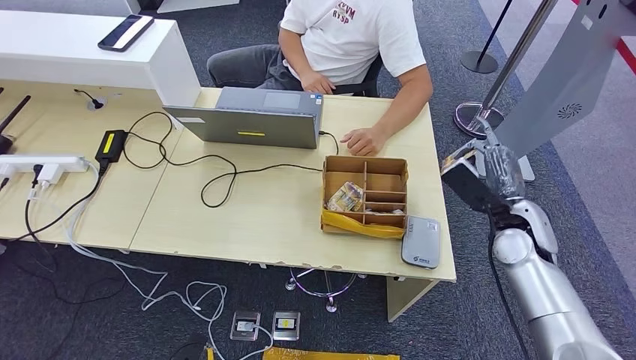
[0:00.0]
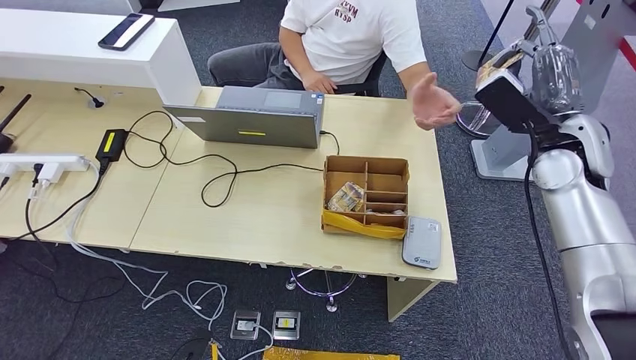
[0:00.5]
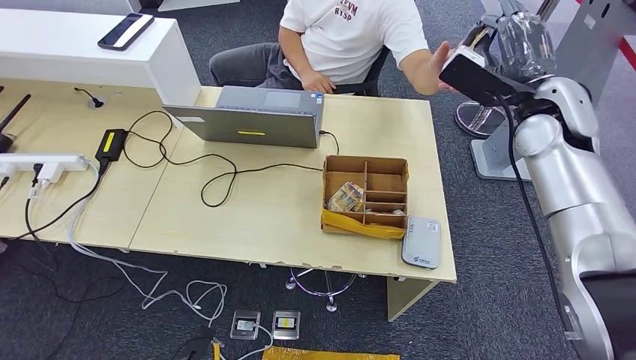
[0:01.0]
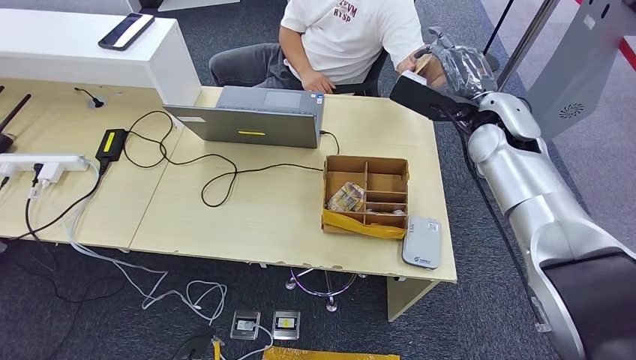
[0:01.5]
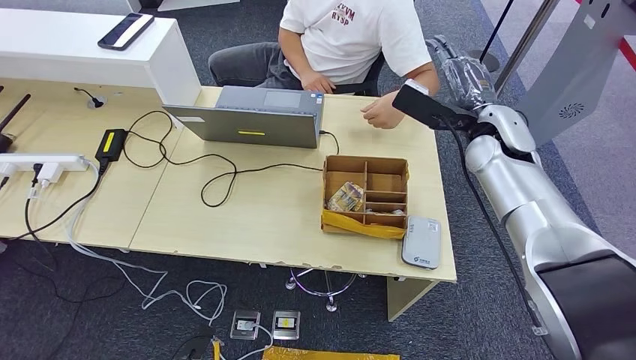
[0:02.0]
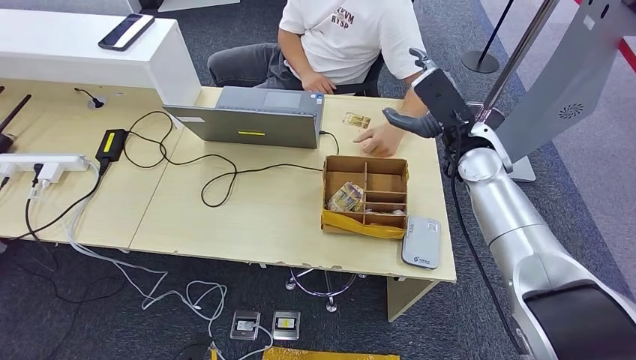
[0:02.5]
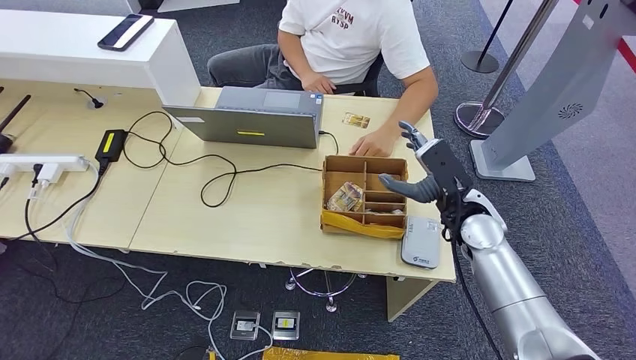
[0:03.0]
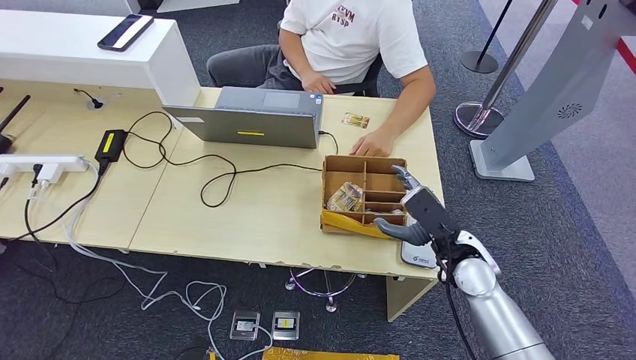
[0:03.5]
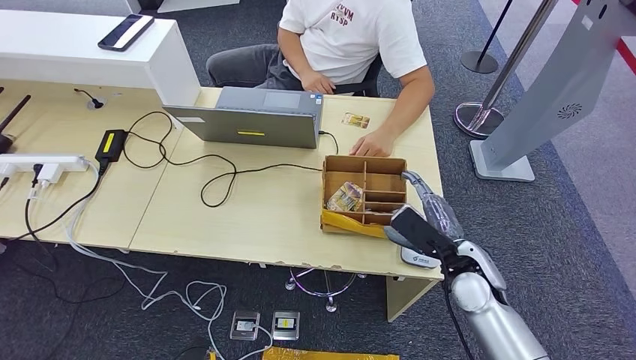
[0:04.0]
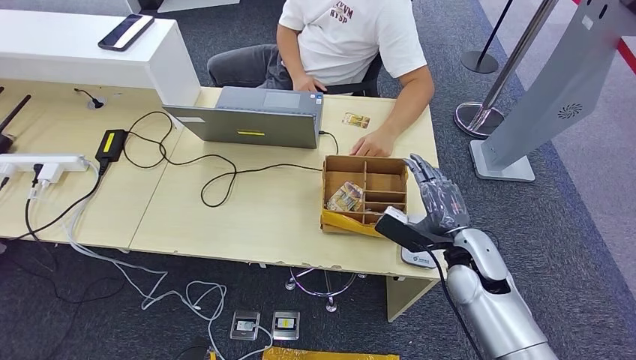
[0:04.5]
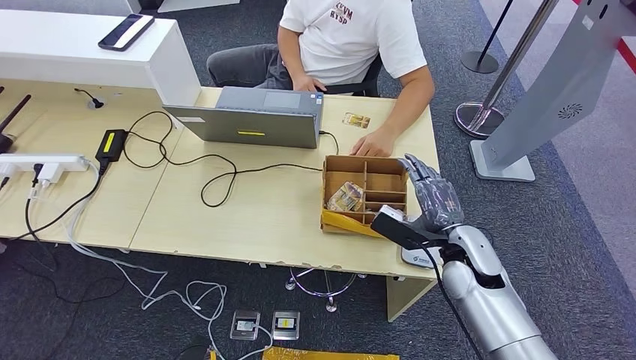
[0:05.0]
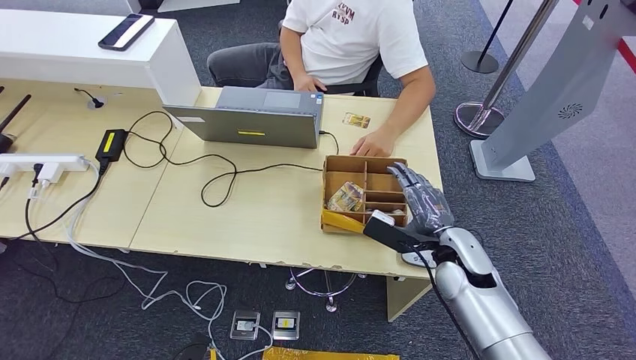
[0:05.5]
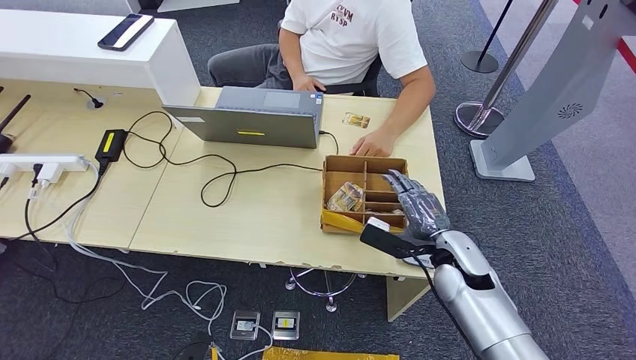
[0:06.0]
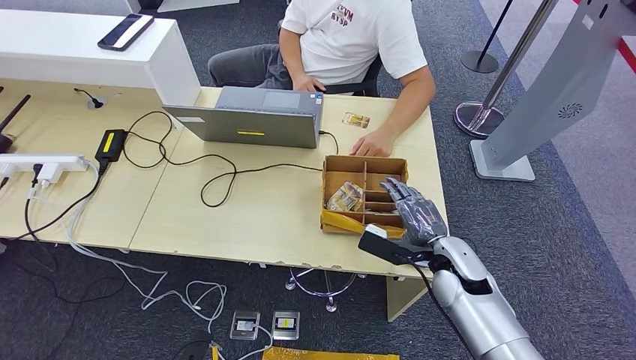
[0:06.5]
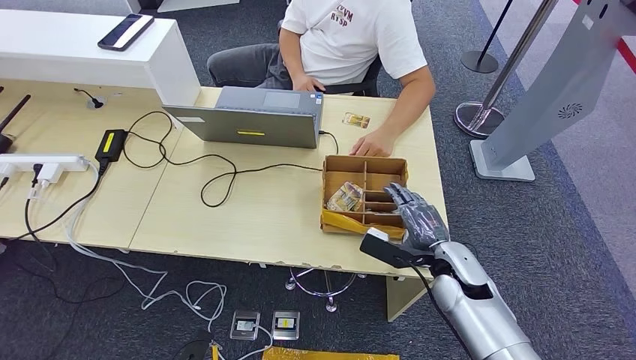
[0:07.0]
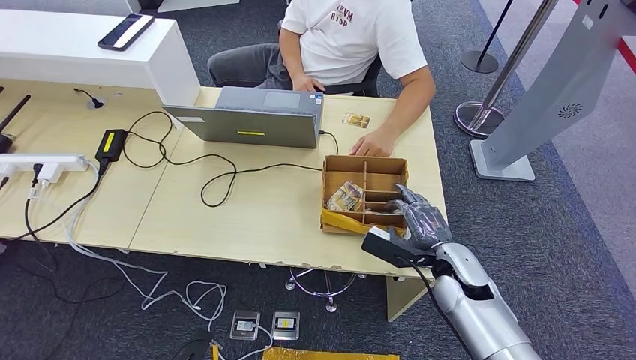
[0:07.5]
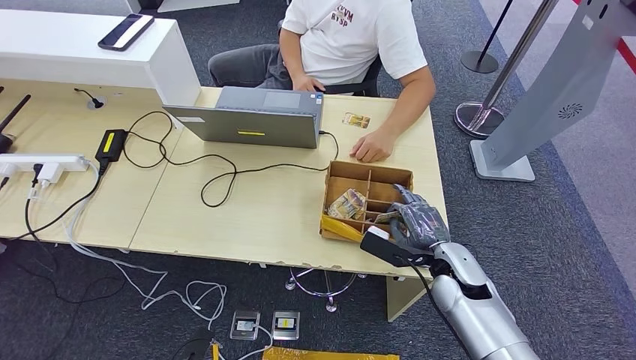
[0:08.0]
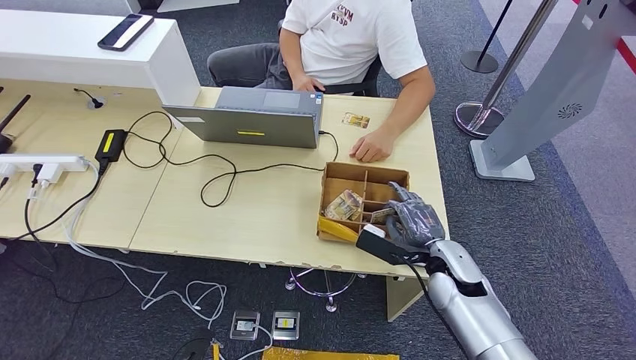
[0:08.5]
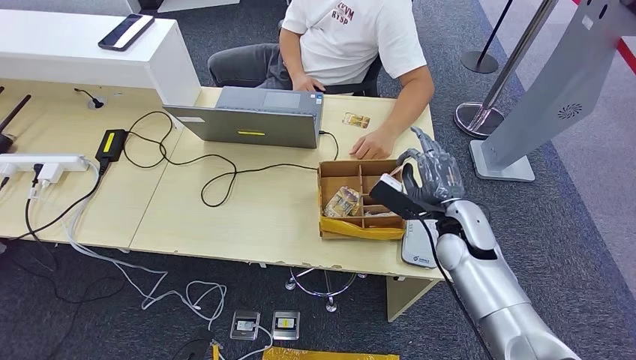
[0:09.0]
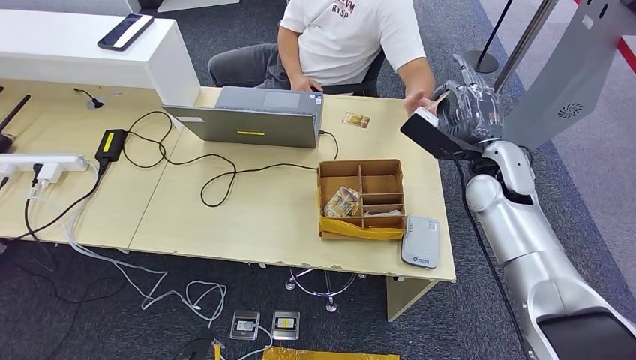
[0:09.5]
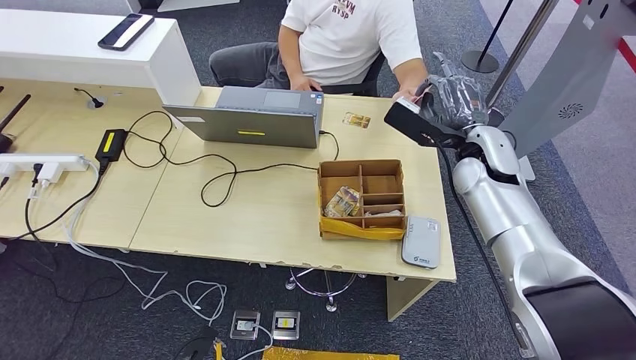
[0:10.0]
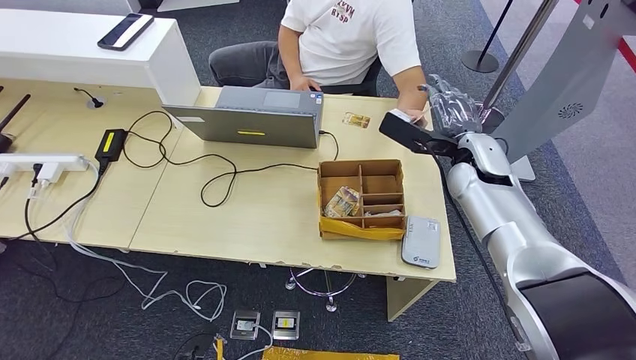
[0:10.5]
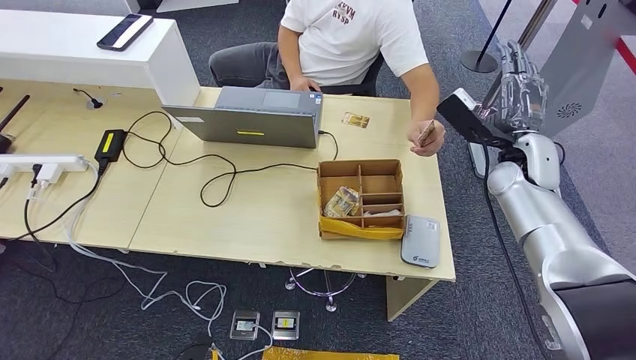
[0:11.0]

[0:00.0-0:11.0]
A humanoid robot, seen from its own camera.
Step, 0:02.0 to 0:09.0: Pick up the room key from the key card box.
Step, 0:09.5 to 0:11.0: Hand the room key to the person.
0:00.0 to 0:02.0: The right hand travels upward, forward and to the left by approximately 15 cm.
0:02.0 to 0:03.5: The right hand heads downward and backward, covering roughly 20 cm.
0:05.5 to 0:07.5: The hands move only a little.
0:07.5 to 0:09.0: The right hand heads upward, covering approximately 5 cm.
0:09.0 to 0:11.0: The right hand shifts roughly 15 cm upward, to the right and forward.
